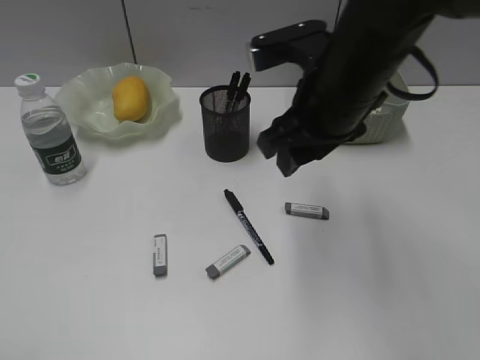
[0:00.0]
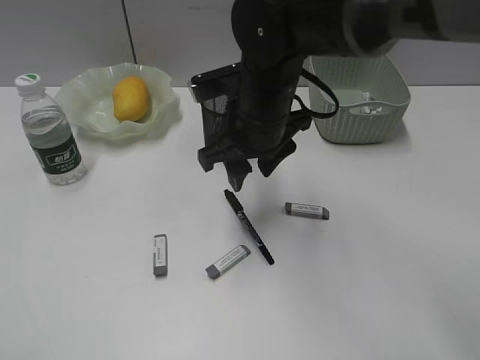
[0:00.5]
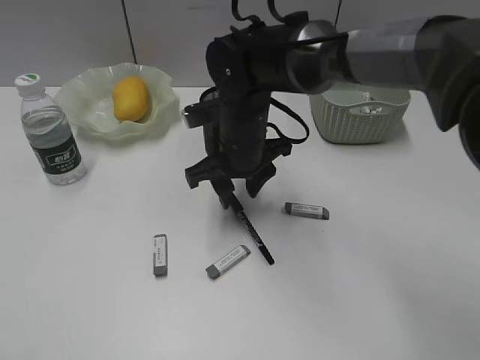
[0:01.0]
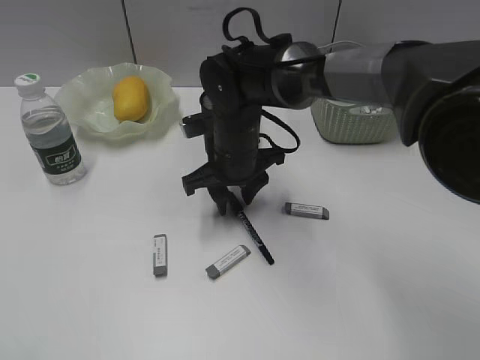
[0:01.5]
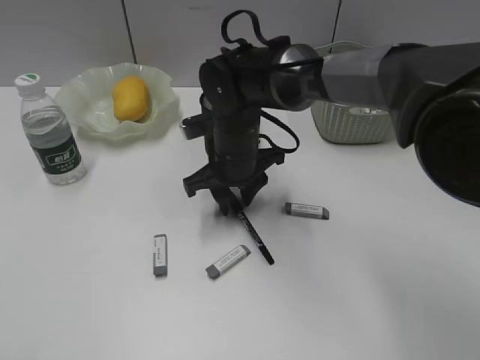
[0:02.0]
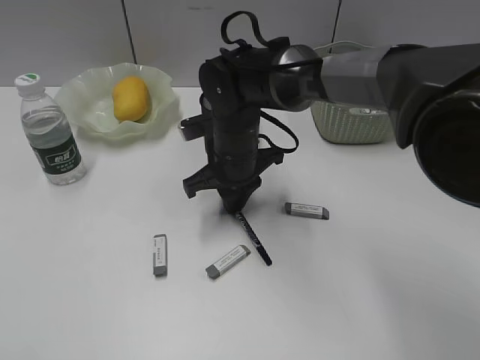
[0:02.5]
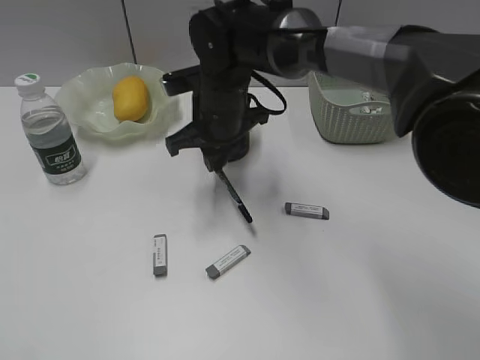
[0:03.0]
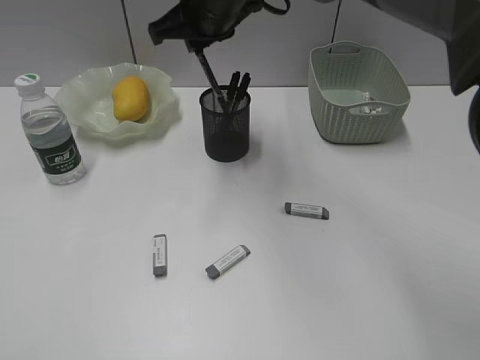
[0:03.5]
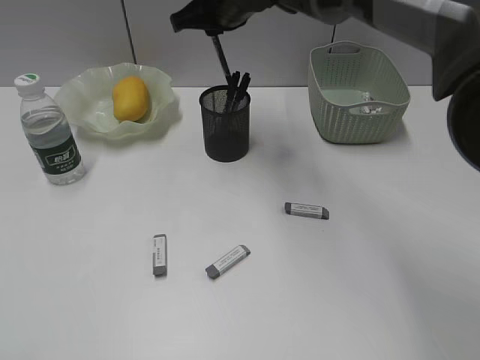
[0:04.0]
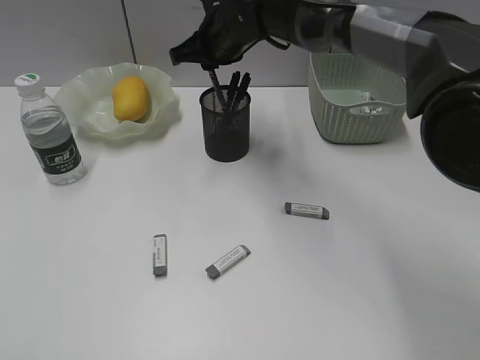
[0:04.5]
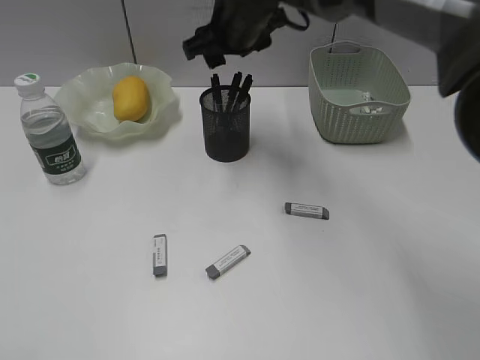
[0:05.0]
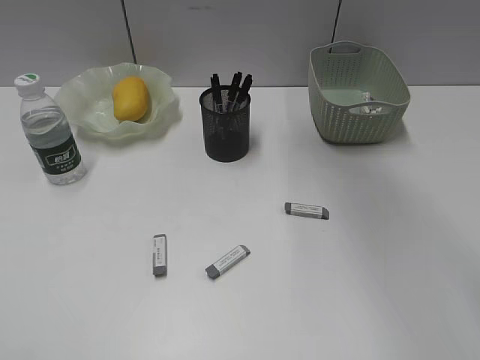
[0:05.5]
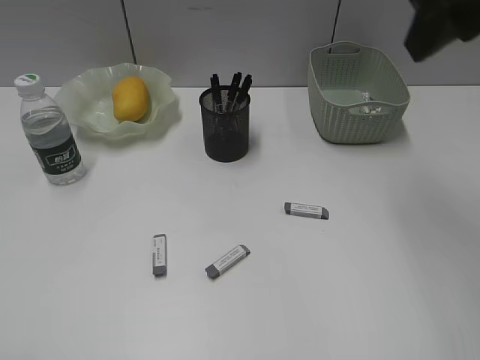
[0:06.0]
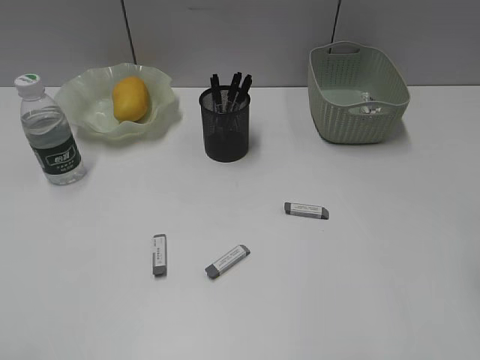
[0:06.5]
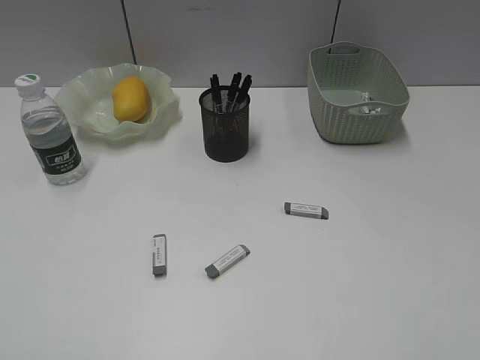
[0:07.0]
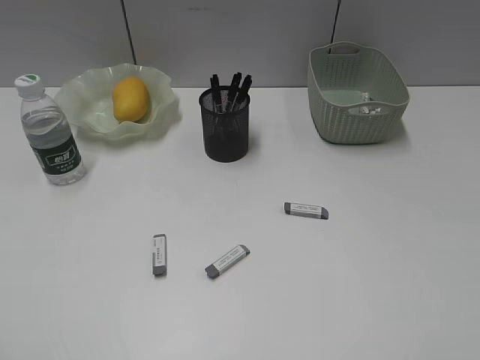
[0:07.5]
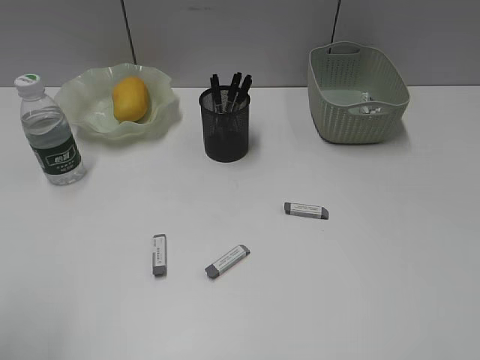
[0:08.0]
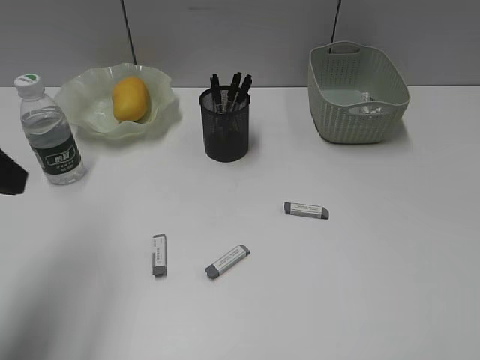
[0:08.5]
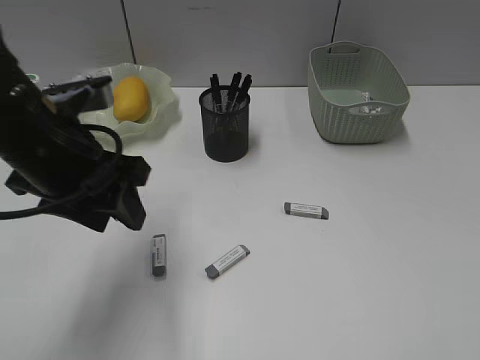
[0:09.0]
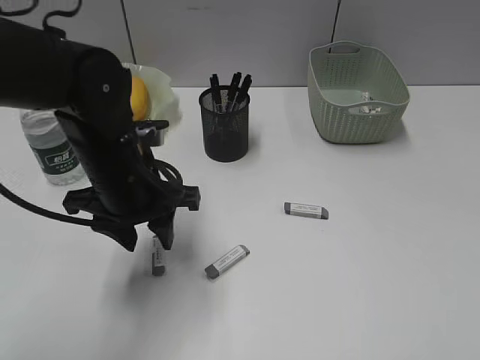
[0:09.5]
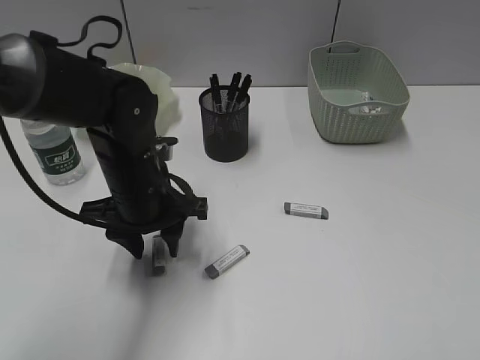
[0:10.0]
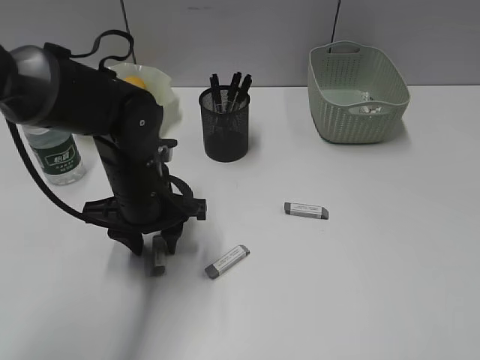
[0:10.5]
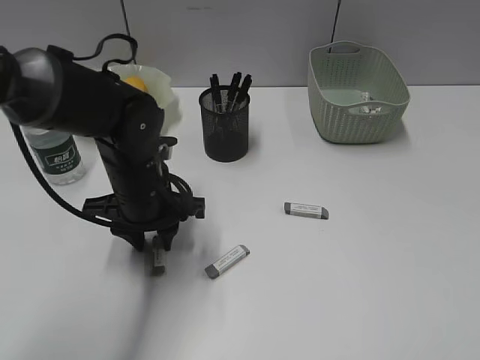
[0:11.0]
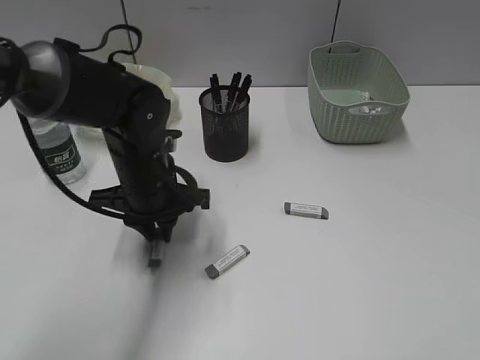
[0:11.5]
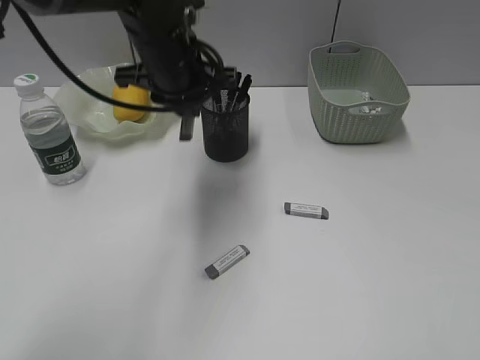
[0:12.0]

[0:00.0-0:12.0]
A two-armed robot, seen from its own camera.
Step, 0:00.0 to 0:02.5: Grasp the black pen with right gripper.
Step, 0:03.0 to 0:04.5: Place the black pen in pen holder with right gripper.
Step, 0:05.0 to 0:11.0: Grasp the eraser with left gripper.
0:00.0 to 0:02.0: The right gripper travels downward, to the left and forward by approximately 20 cm.
0:02.0 to 0:04.0: The right gripper travels upward and forward by some 15 cm, and closes its fingers.
0:04.0 to 0:06.0: The right gripper travels backward, to the right and upward by roughly 30 cm, and opens.
0:06.0 to 0:08.0: The right gripper moves backward and to the right, approximately 30 cm.
0:08.0 to 0:10.0: The left gripper goes some 35 cm forward, to the right and downward.
0:10.0 to 0:12.0: The left gripper heads upward and forward, covering about 15 cm, and closes its fingers.

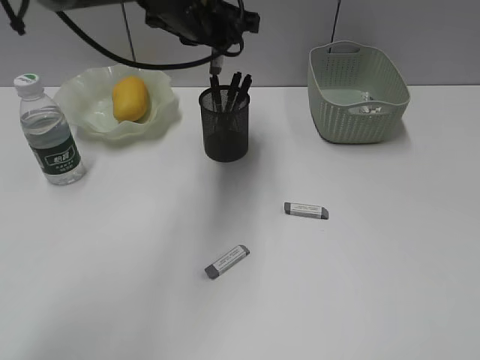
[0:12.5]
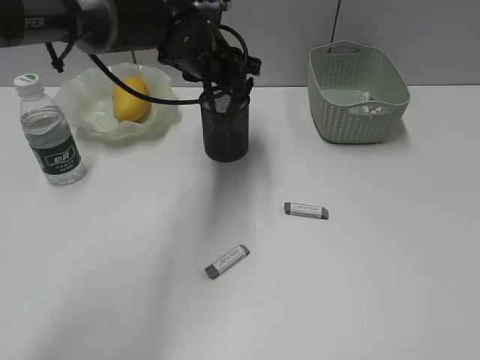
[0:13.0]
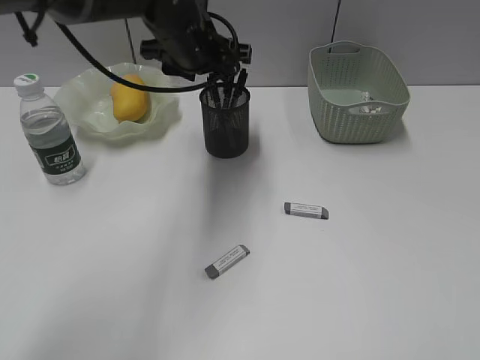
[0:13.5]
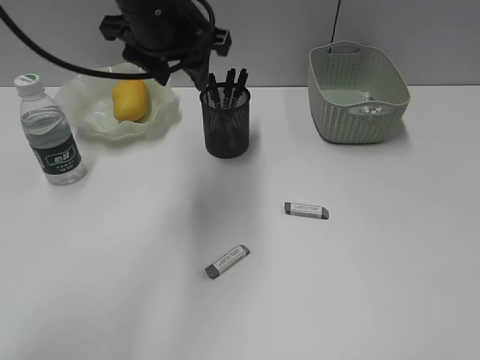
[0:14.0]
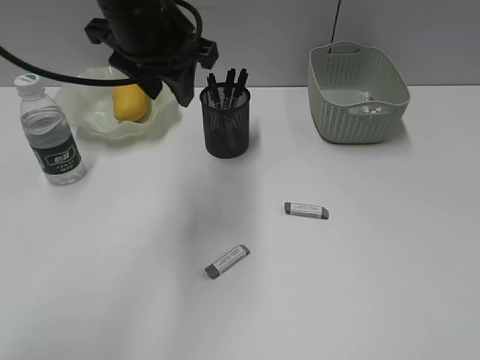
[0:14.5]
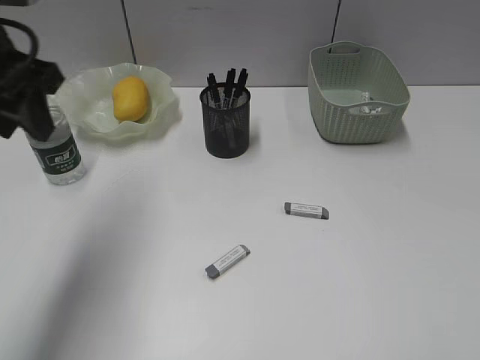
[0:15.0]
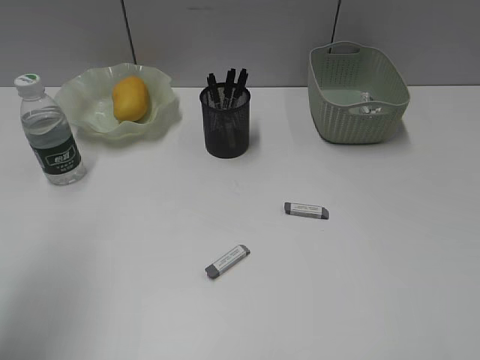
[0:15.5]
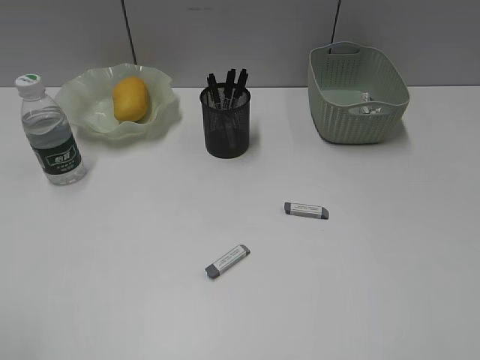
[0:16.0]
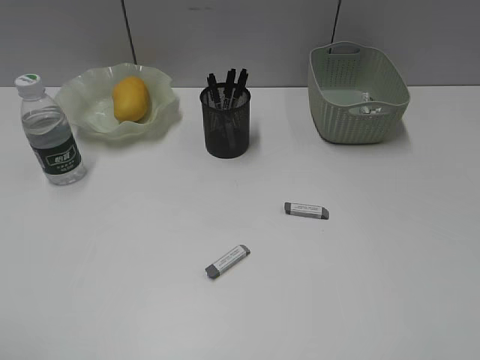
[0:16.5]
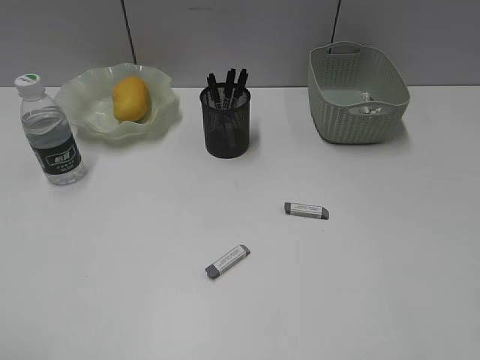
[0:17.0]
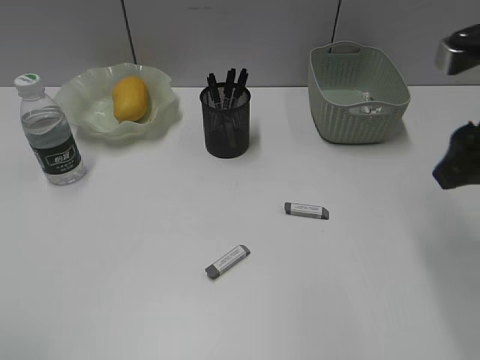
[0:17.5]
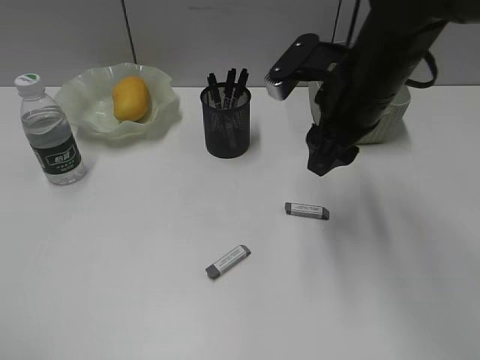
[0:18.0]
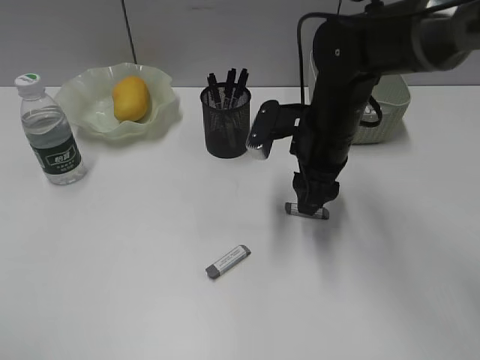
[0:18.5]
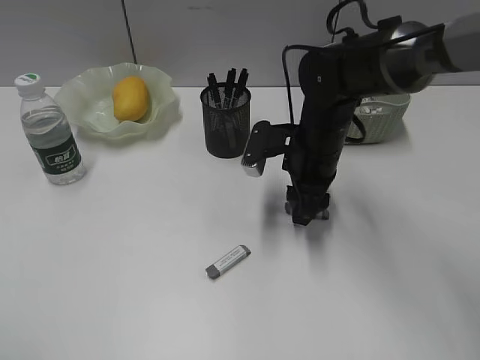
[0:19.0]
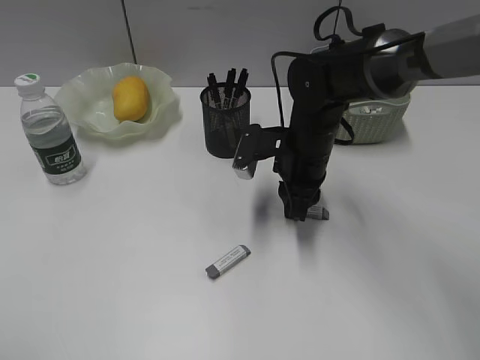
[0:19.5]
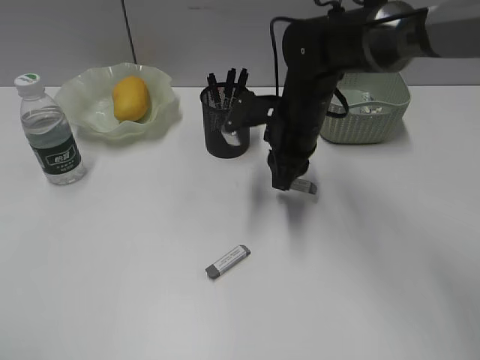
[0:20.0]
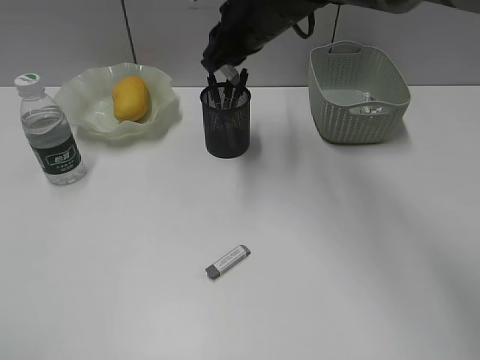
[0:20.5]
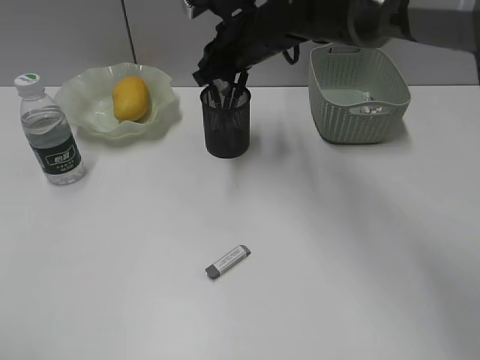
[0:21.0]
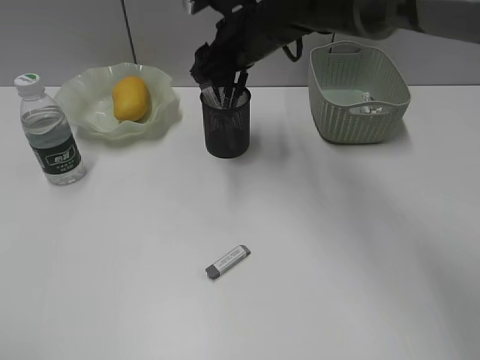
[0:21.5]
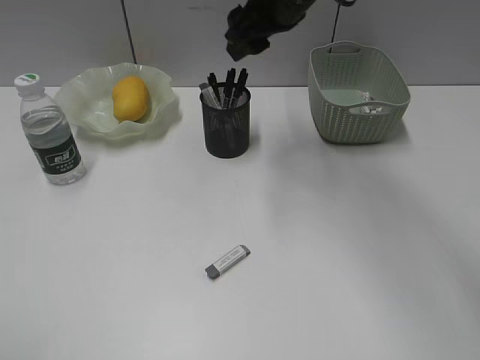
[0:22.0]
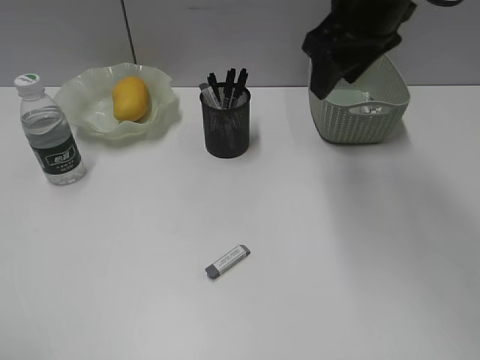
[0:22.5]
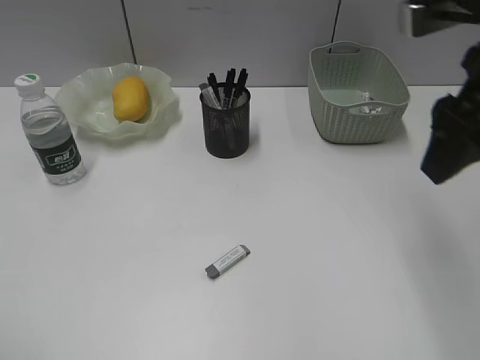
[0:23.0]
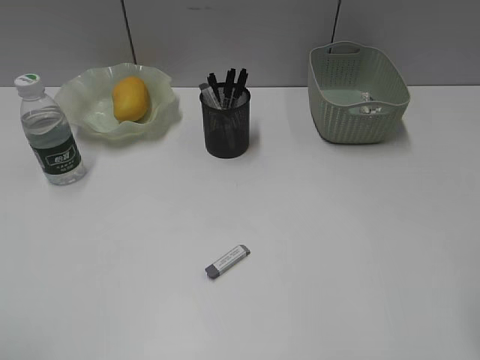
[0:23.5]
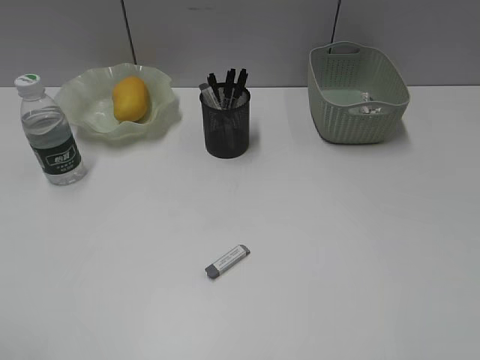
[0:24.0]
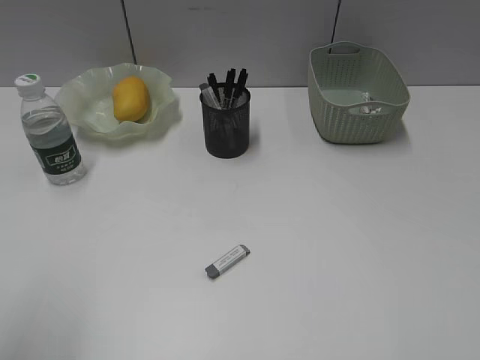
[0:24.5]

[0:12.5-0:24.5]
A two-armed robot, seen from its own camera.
Step, 0:13.5 to 0:19.5: Grasp the eraser with right gripper.
Step, 0:20.0 to 0:21.0: Place the eraser in pen holder with right gripper.
0:12.5 to 0:14.5: The left gripper shifts some 5 cm backward, and opens up.
0:14.5 to 0:16.5: The left gripper is displaced backward and to the left by some 40 cm.
0:16.5 to 0:18.5: The right gripper is displaced forward, to the left and downward by roughly 40 cm.
0:18.5 to 0:20.5: The right gripper shifts about 15 cm upward, forward and to the left, and closes.
0:20.5 to 0:22.5: The right gripper heads to the right, backward and upward, covering some 15 cm, and opens.
0:22.5 to 0:24.5: The right gripper heads backward and to the right, covering about 35 cm; the left gripper travels forward by roughly 5 cm.

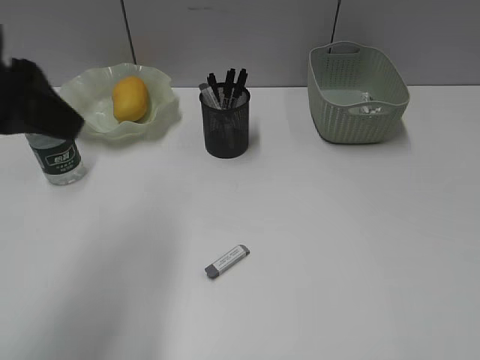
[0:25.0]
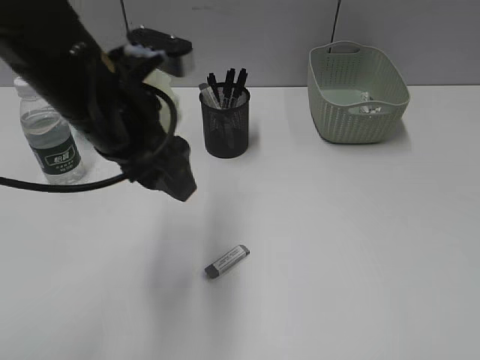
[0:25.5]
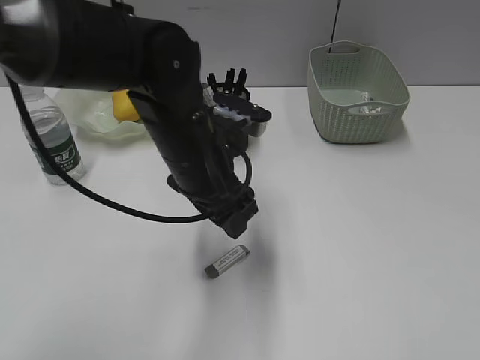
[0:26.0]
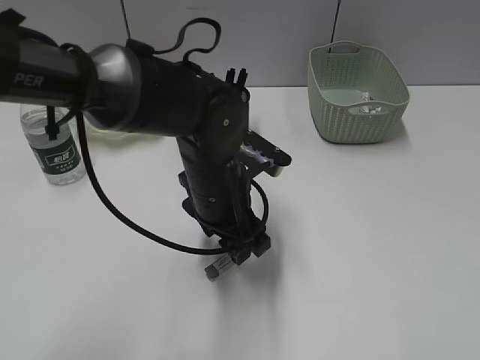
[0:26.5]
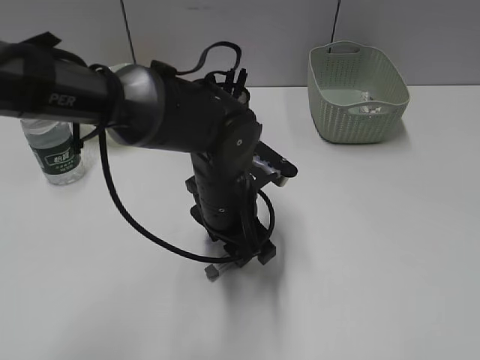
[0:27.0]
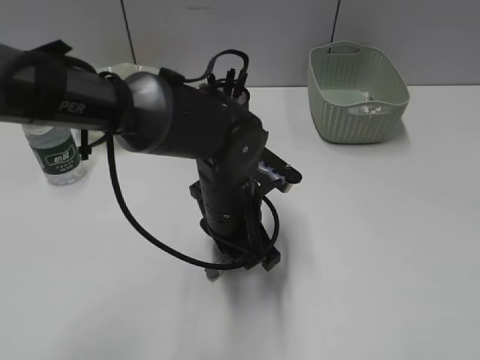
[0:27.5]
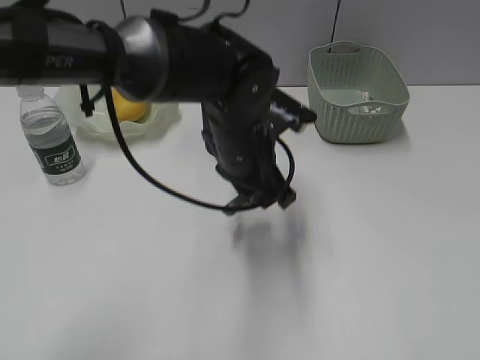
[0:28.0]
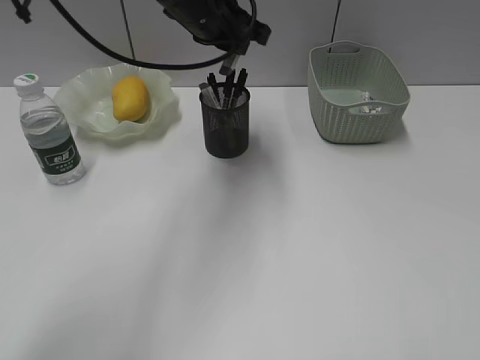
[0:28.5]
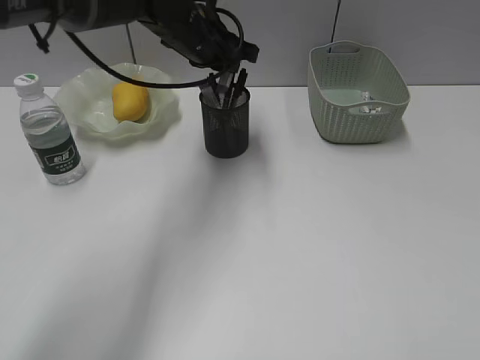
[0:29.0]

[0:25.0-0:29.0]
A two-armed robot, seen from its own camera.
Step, 0:25.0 to 0:27.5: Grasp the eraser with left gripper.
0:25.0 to 0:27.0: The left gripper goes approximately 30 cm downward and to the right.
0:27.0 to 0:29.0: The left gripper is displaced forward and upward by about 20 cm, and closes.
